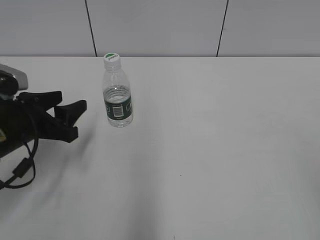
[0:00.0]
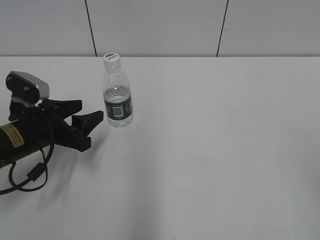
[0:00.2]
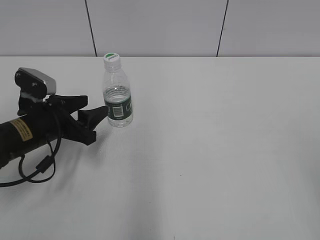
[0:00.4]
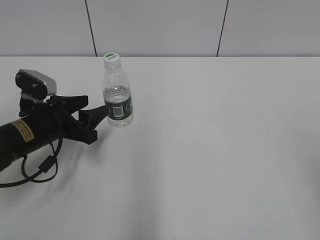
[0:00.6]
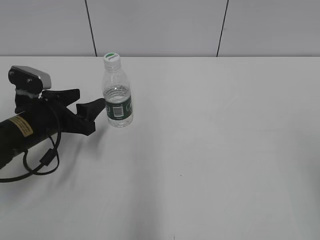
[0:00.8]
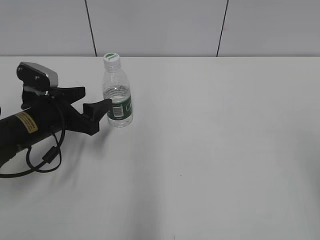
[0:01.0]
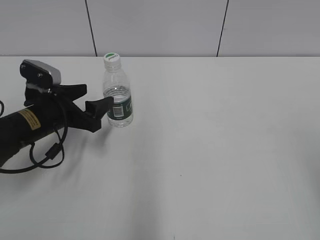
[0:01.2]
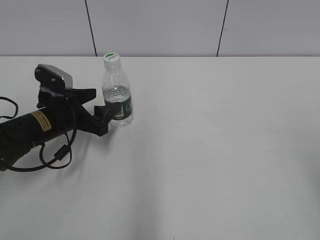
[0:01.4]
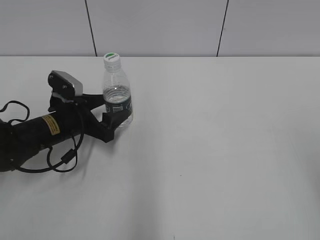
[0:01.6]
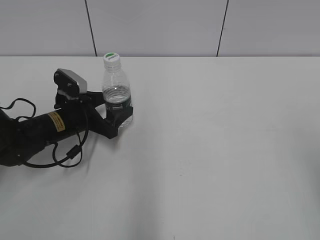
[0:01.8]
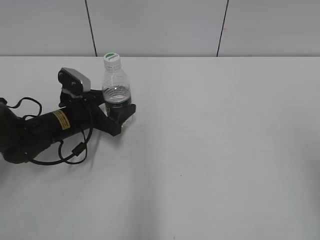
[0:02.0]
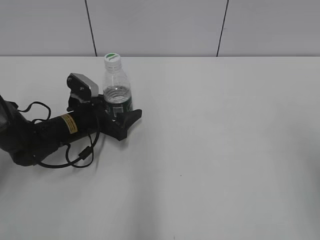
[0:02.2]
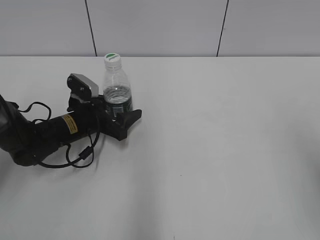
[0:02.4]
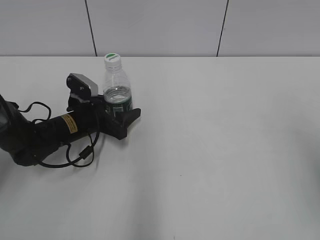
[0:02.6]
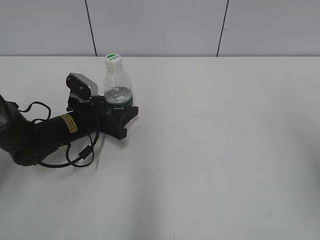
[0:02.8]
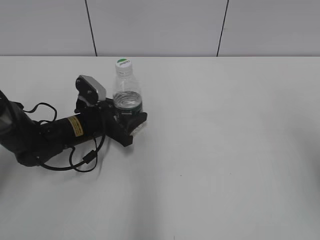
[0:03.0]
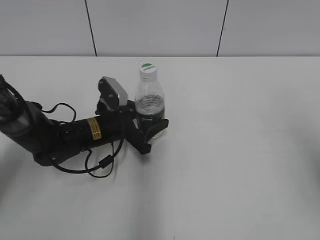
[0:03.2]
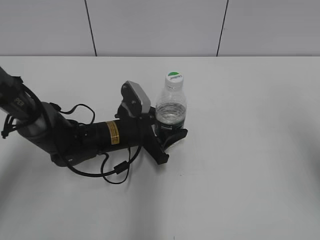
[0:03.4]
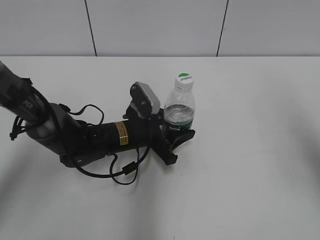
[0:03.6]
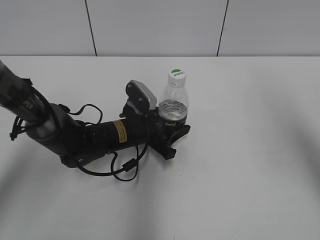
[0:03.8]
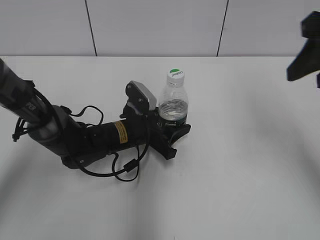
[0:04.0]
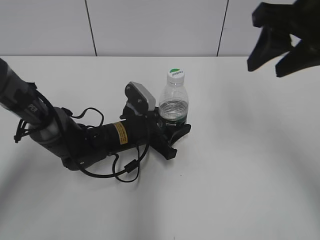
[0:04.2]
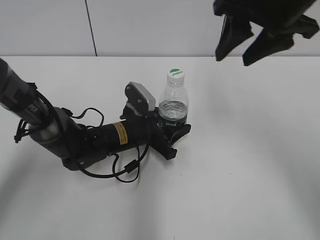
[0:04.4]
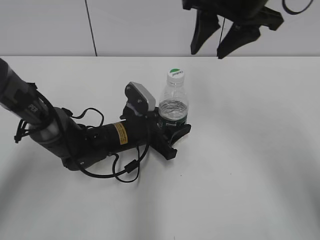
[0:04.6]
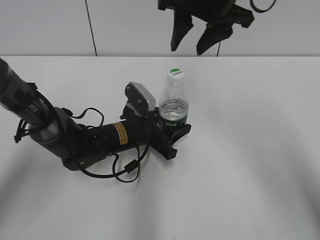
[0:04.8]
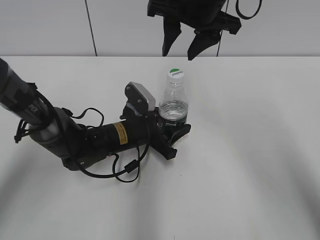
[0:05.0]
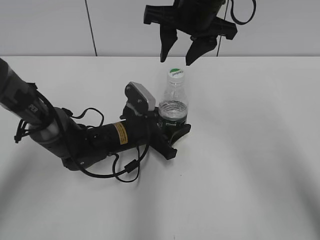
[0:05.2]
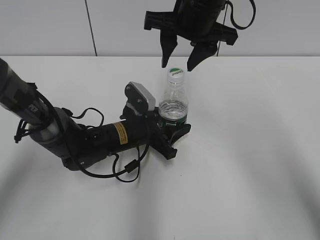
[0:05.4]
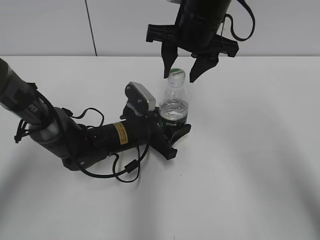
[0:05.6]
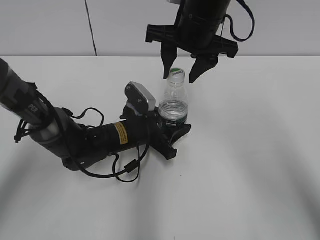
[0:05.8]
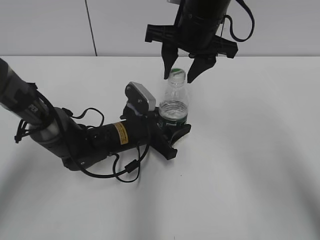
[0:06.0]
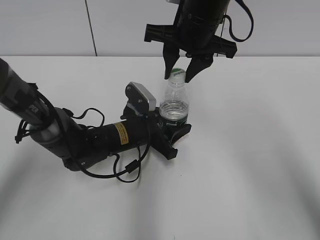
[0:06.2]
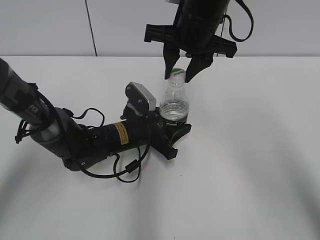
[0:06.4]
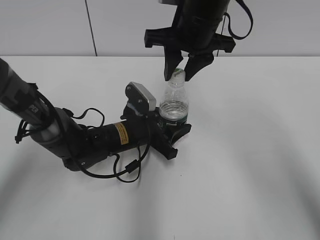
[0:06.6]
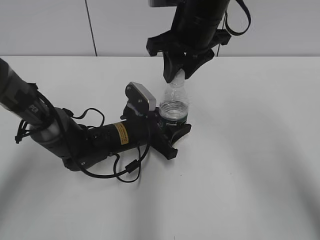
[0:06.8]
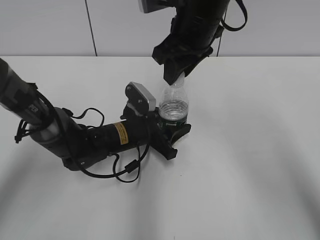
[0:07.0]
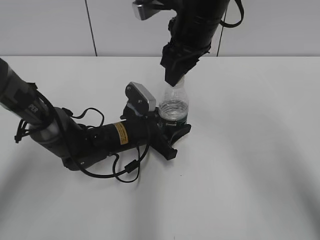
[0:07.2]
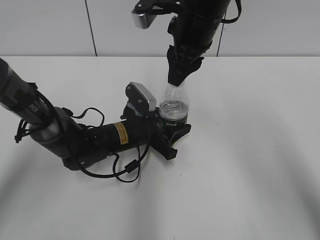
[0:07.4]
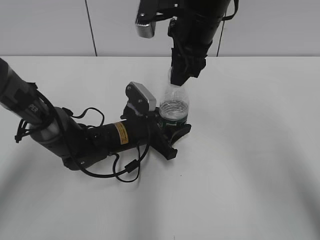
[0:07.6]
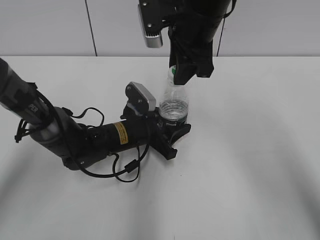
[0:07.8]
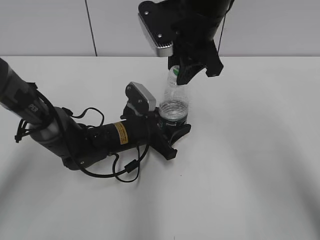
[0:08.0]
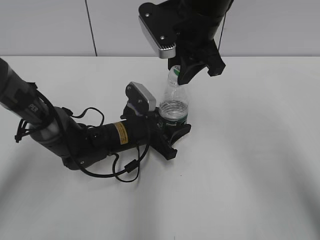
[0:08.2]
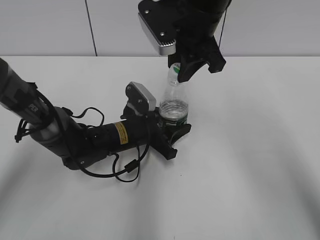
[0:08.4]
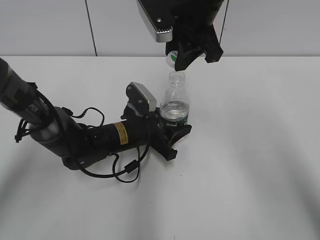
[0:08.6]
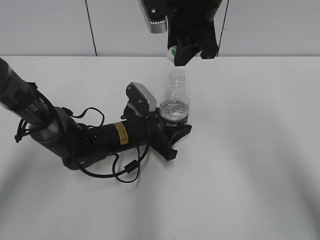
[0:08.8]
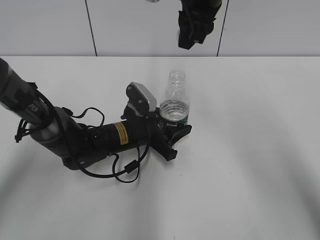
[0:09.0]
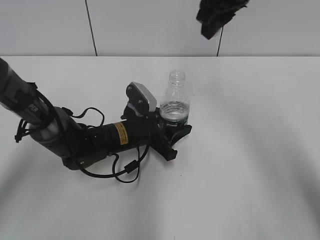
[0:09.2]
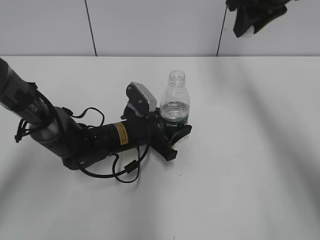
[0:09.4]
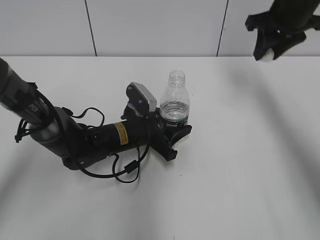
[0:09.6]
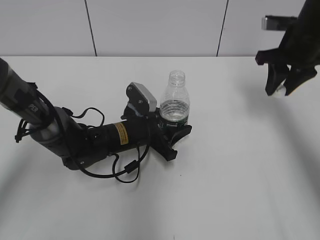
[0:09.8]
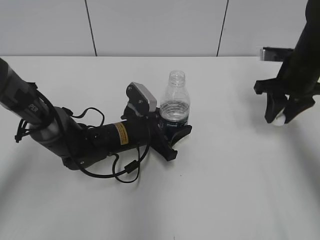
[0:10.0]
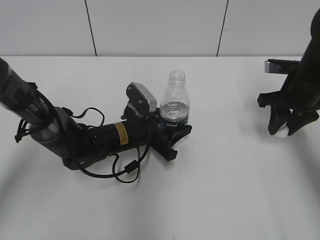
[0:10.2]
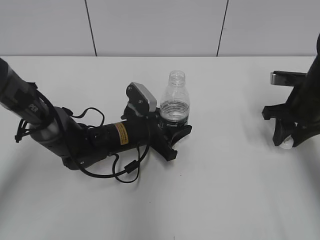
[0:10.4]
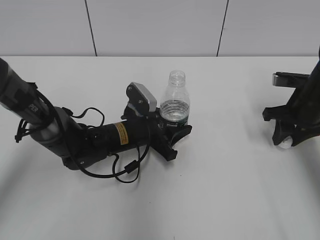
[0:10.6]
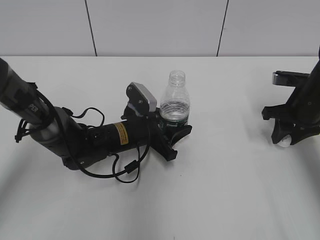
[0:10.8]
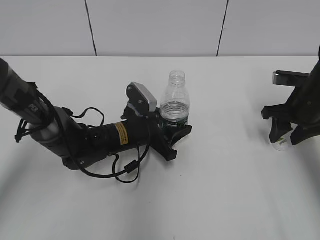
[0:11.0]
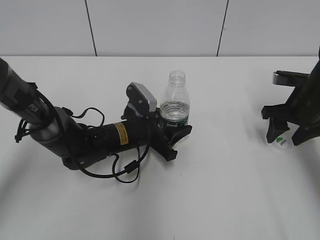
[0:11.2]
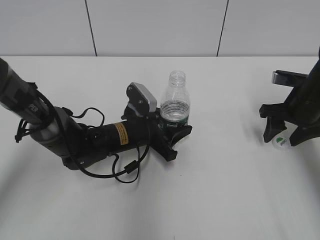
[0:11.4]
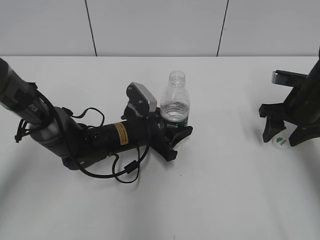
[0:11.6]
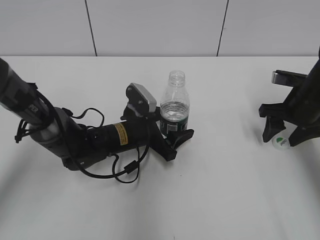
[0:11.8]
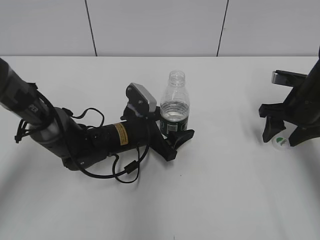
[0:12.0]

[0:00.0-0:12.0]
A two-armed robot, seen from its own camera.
Step, 0:00.0 to 0:03.8: Grasp the bottle and move it to the center of the table with the left gripper.
Step, 0:04.0 to 0:08.8: Unscrew the bottle cap with the right gripper while holding the bottle with the left gripper.
Step, 0:09.2 to 0:11.0: Place the bottle cap on the table with the right gripper.
0:00.0 to 0:01.6: The left gripper moves forward and downward, some 10 cm, and opens up; the right gripper ends up roughly 5 cm from where it was.
0:01.6 to 0:03.0: The right gripper travels forward by roughly 5 cm. The left gripper closes.
0:03.0 to 0:04.4: The right gripper travels forward and to the left by roughly 25 cm. The left gripper shifts about 10 cm to the right.
0:04.4 to 0:06.0: The right gripper travels to the left, downward and forward by about 10 cm.
0:06.0 to 0:07.6: The right gripper closes up.
0:09.0 to 0:10.4: The right gripper moves to the right and downward, some 30 cm.
0:10.4 to 0:12.0: The right gripper opens its fingers; the left gripper opens up.

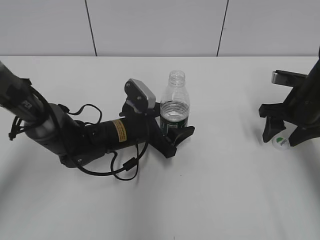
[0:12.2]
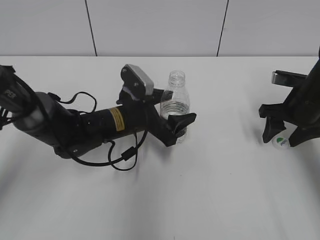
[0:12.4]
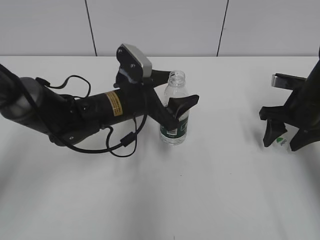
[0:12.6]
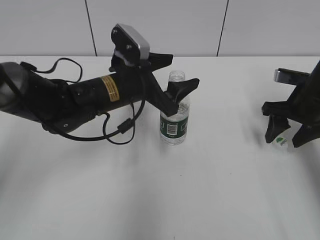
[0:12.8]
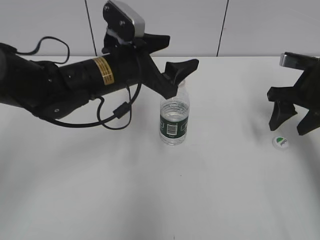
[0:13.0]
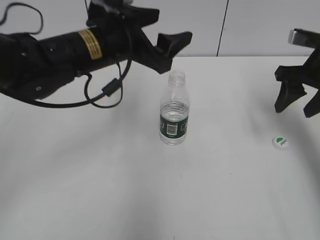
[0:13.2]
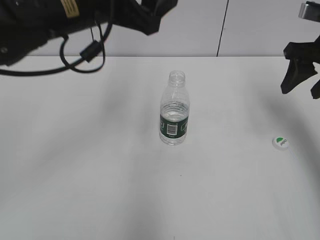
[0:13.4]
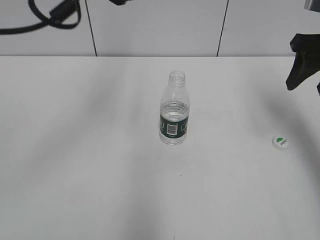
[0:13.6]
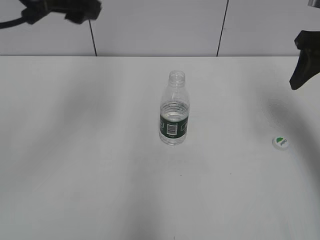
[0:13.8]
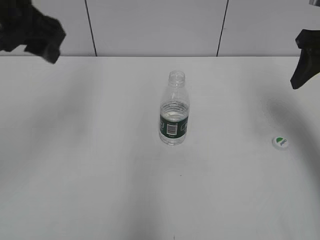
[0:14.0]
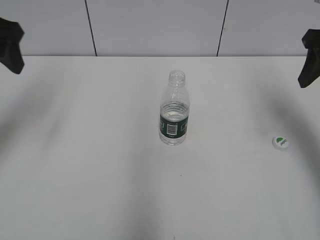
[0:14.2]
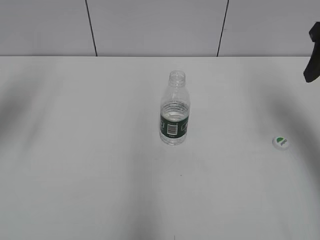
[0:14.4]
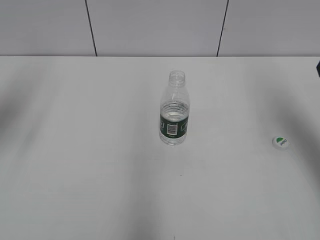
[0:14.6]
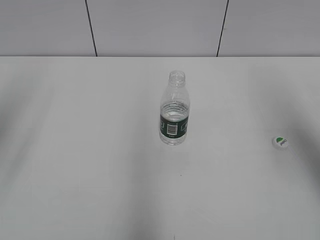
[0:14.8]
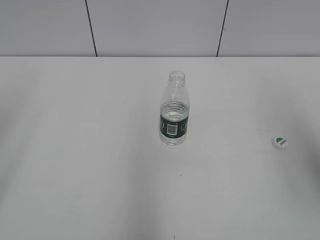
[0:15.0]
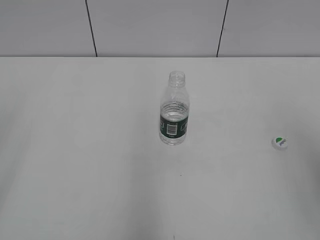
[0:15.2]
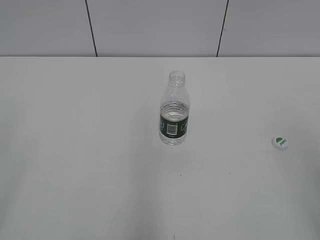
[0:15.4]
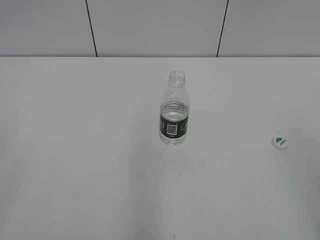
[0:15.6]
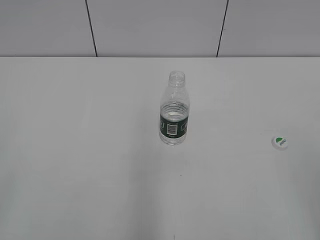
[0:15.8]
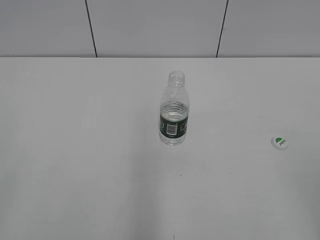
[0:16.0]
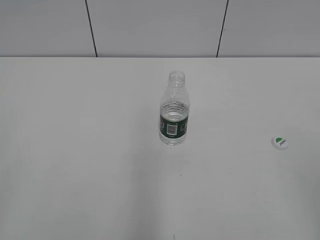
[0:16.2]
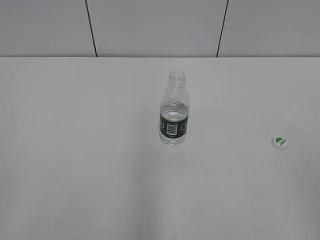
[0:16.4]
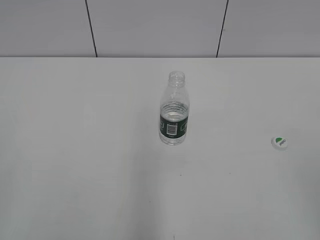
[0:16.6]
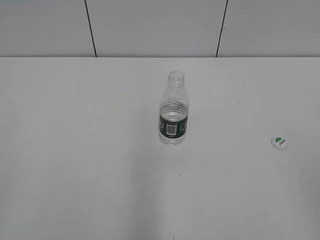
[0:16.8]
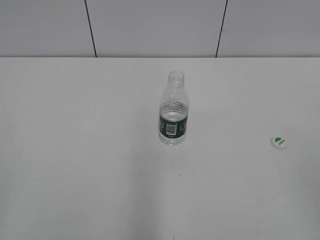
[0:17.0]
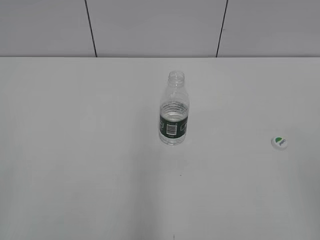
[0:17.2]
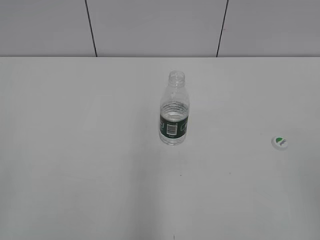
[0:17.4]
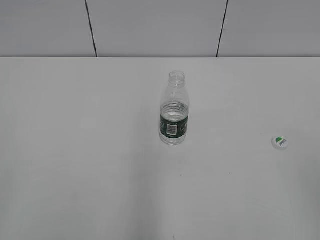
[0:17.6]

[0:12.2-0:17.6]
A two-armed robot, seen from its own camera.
0:12.2 to 0:13.6: The left gripper shifts roughly 30 cm upward. Meanwhile the right gripper shifts about 15 cm upward.
0:13.6 to 0:15.0: The right gripper is displaced backward and upward by some 20 cm; the left gripper moves to the left and backward, roughly 25 cm.
0:16.2 to 0:17.6: Both grippers stay put.

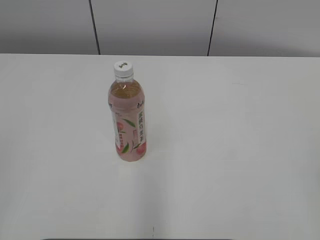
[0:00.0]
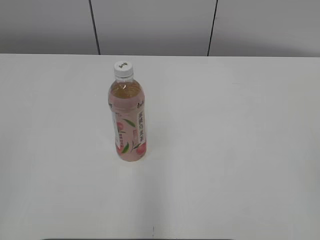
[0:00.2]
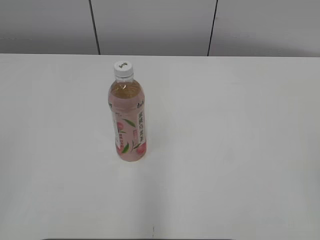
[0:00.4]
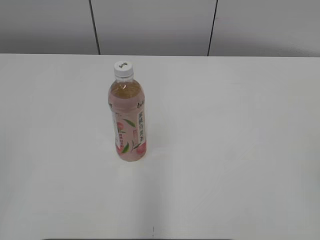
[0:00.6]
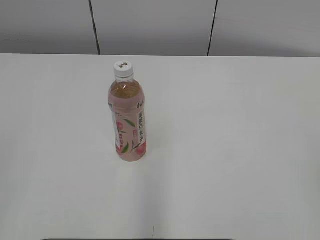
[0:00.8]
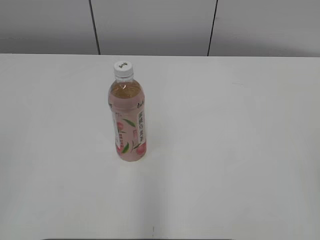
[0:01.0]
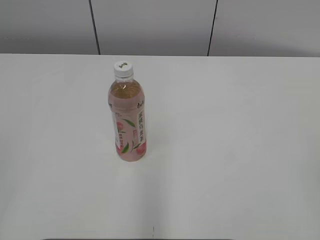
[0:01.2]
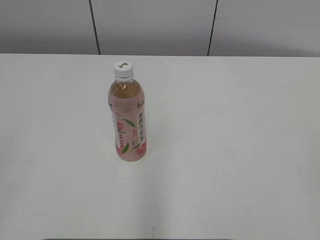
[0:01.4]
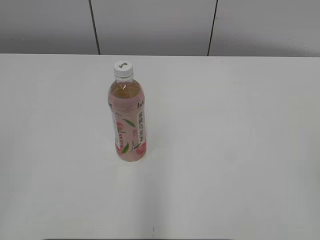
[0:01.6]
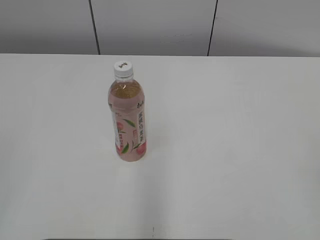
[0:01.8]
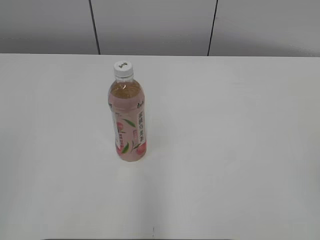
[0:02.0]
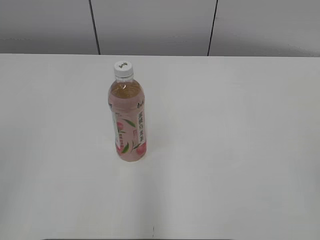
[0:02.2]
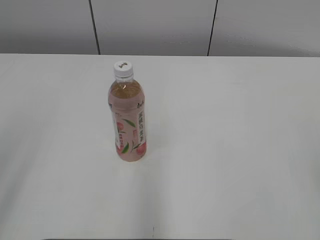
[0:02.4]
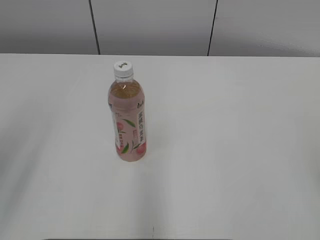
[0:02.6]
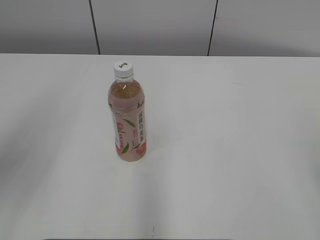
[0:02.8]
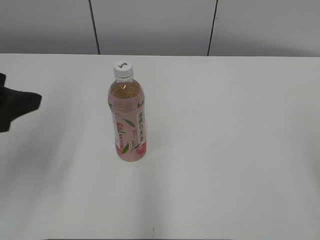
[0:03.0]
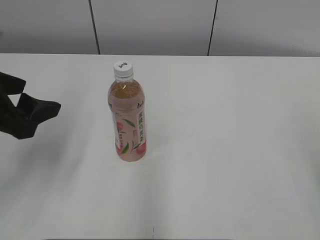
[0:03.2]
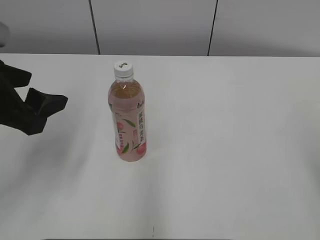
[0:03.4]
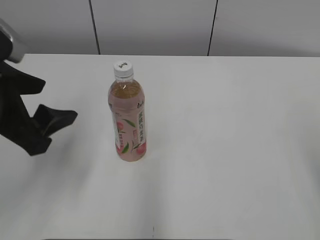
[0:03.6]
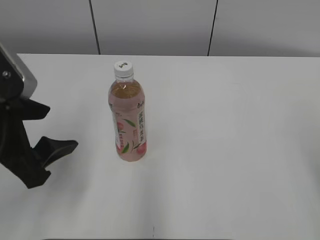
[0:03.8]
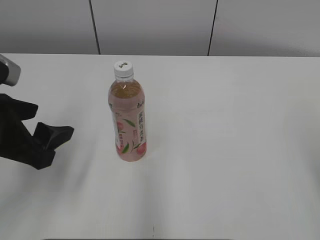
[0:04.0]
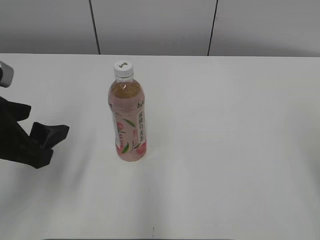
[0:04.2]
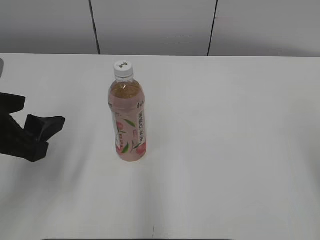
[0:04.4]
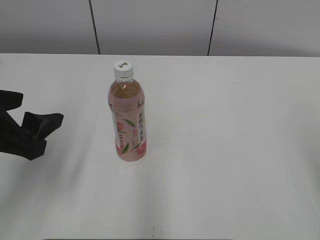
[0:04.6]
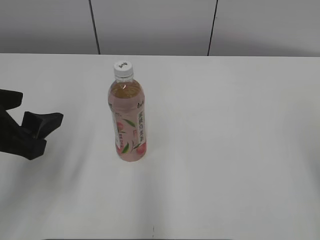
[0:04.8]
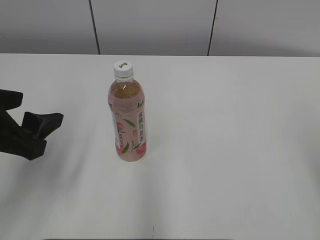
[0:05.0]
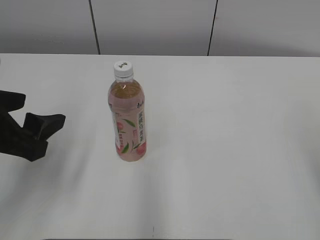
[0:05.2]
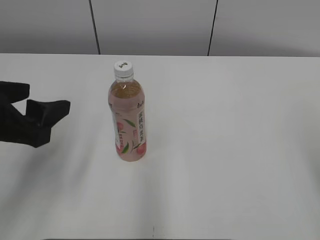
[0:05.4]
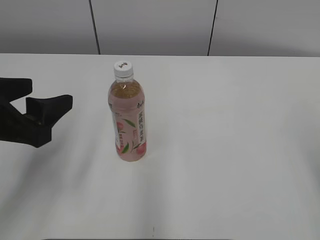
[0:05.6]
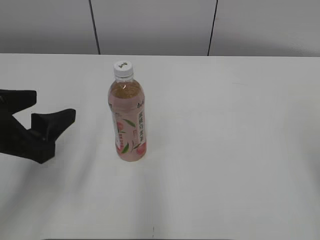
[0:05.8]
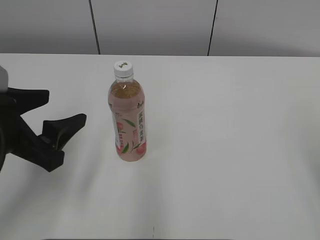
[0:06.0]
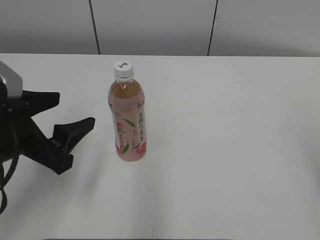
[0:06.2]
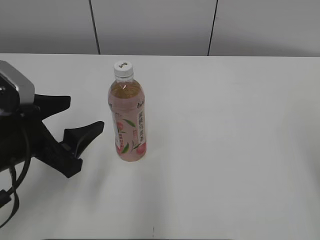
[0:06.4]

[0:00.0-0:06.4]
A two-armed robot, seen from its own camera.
0:01.6 to 0:03.2: The left gripper goes about 20 cm forward, and opens up.
0:03.2 to 0:04.8: The grippers make only small movements.
0:04.8 to 0:06.4: The left gripper shifts by some 5 cm.
